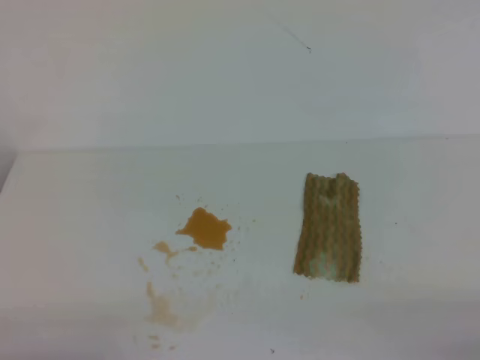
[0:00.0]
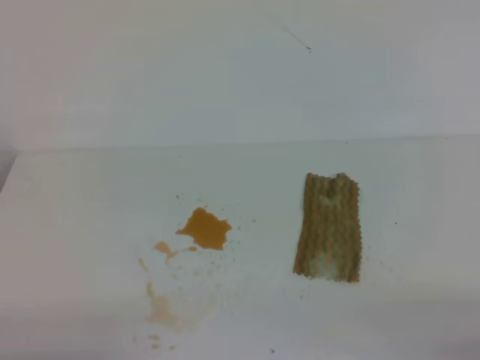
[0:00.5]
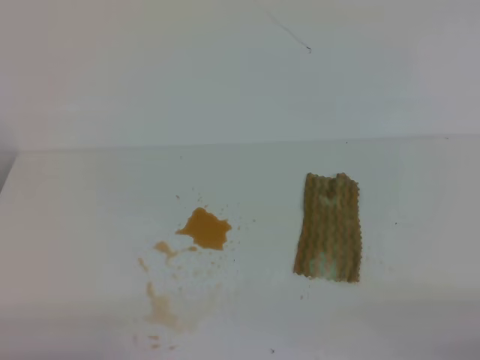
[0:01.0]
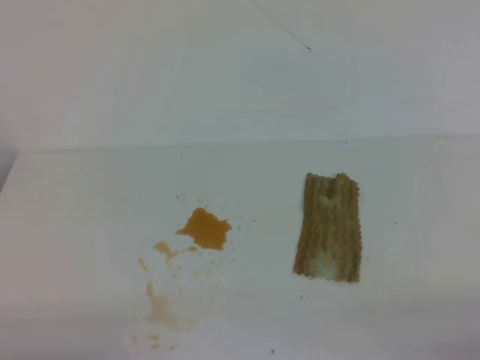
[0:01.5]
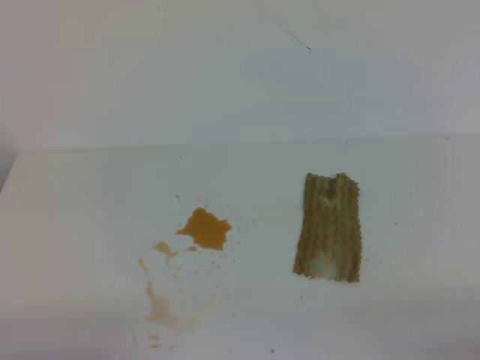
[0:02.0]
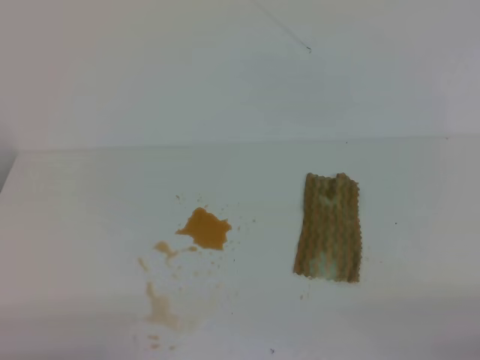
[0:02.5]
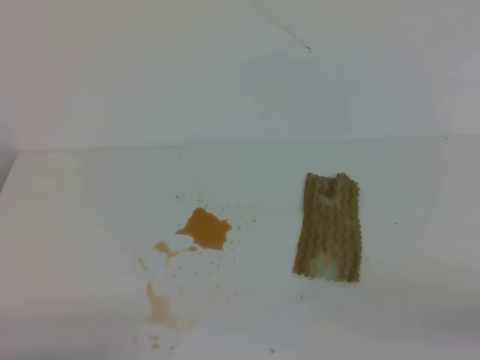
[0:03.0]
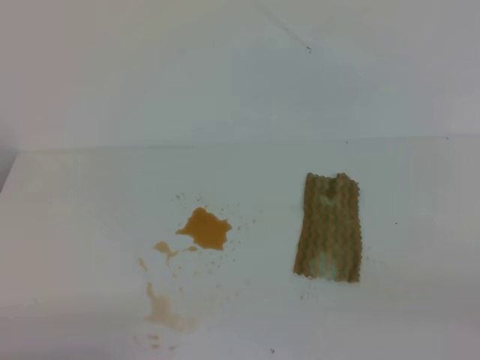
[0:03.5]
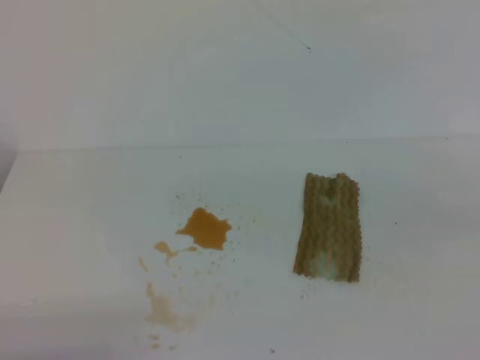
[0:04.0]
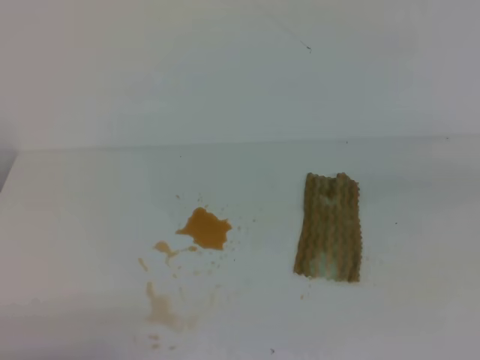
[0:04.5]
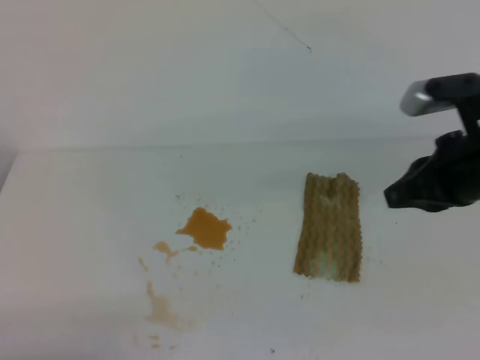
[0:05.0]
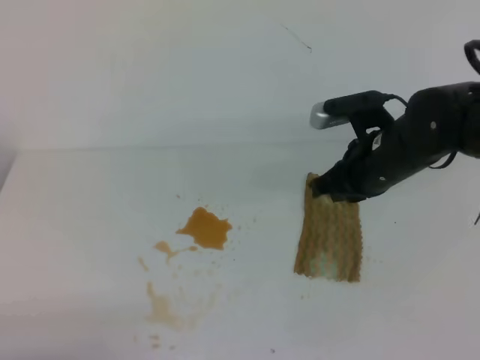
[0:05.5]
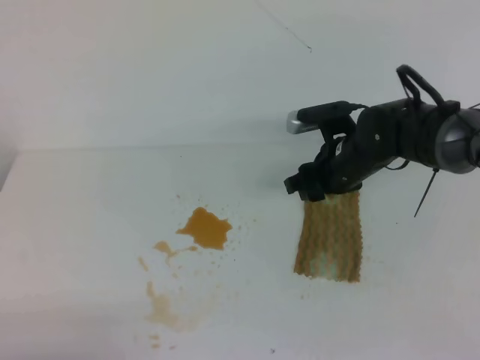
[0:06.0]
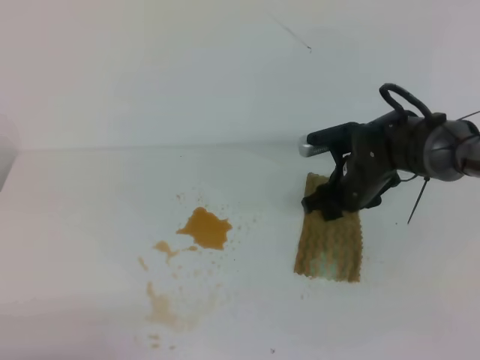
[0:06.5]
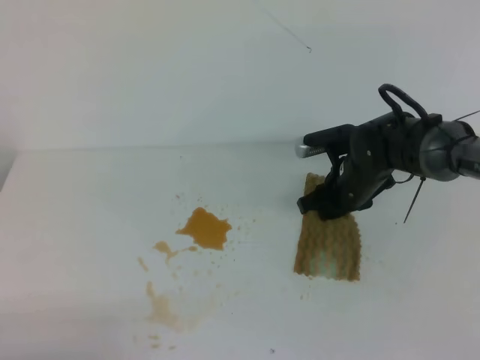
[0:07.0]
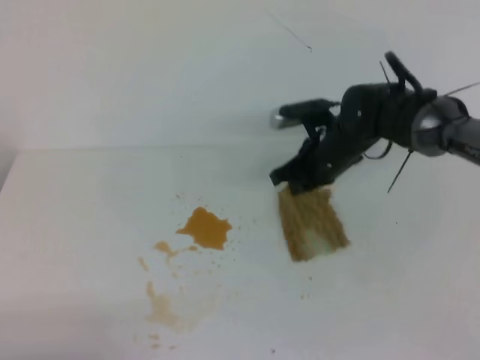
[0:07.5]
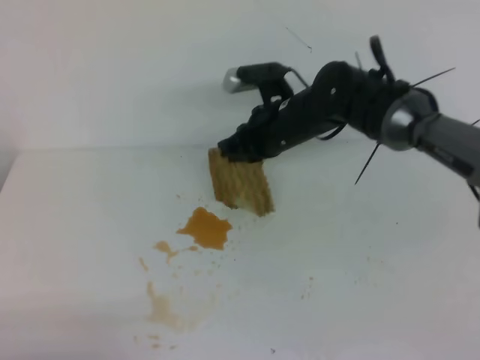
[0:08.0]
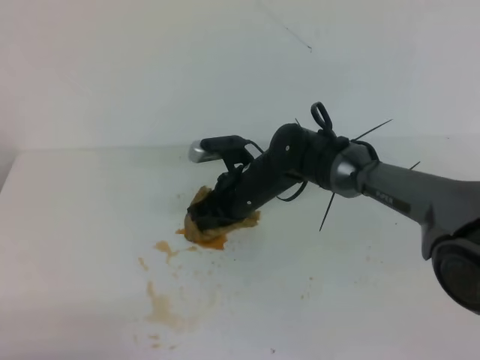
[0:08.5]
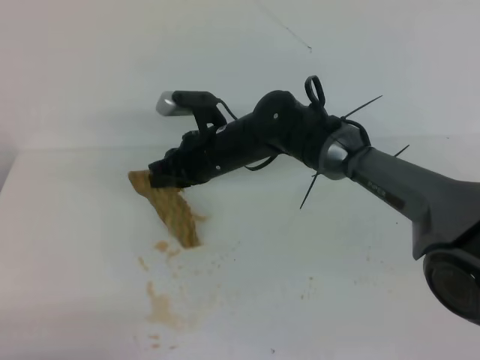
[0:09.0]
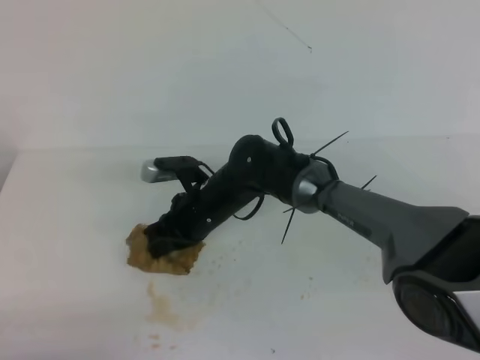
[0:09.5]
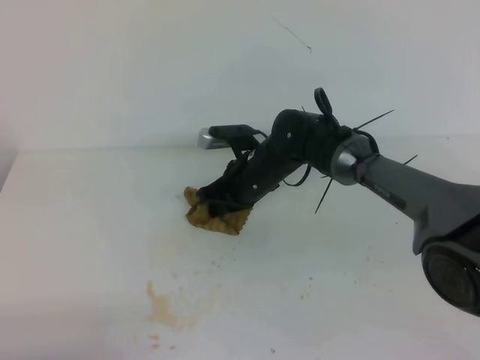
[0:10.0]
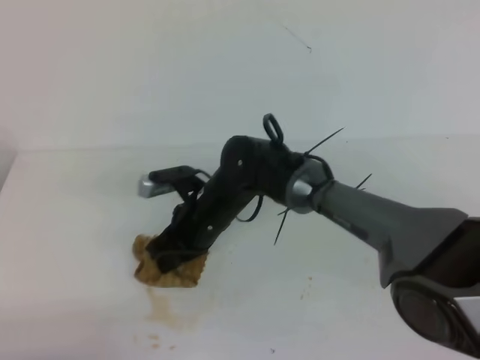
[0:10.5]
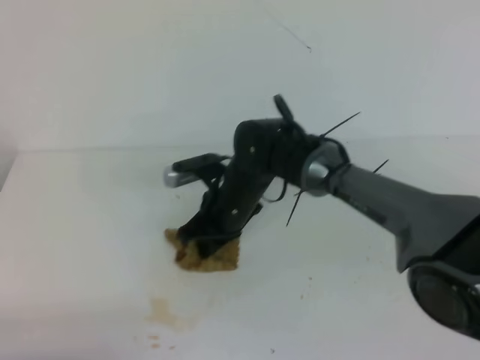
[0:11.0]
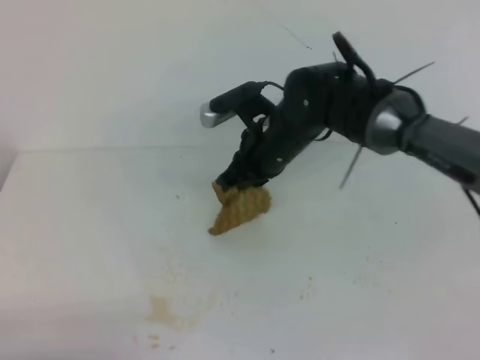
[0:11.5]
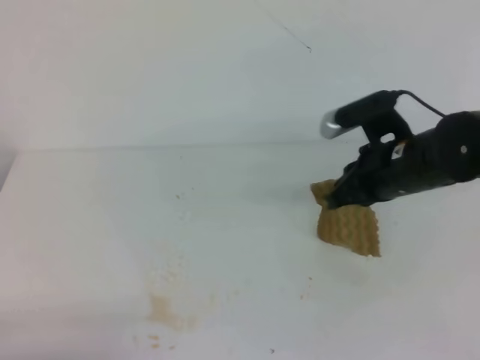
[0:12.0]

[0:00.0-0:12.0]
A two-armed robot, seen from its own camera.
0:00.0 to 0:02.0: The two grippers keep their place.
0:04.0 to 0:06.0: The right gripper is displaced forward, to the left and downward by approximately 40 cm, and opens up.
0:06.0 to 0:08.0: The right gripper shifts some 10 cm to the left, reaches approximately 5 cm downward, then returns, and closes its fingers.
0:08.0 to 0:10.0: The right gripper heads downward, covering approximately 10 cm.
0:10.0 to 0:12.0: The right gripper goes approximately 20 cm to the right, upward and backward.

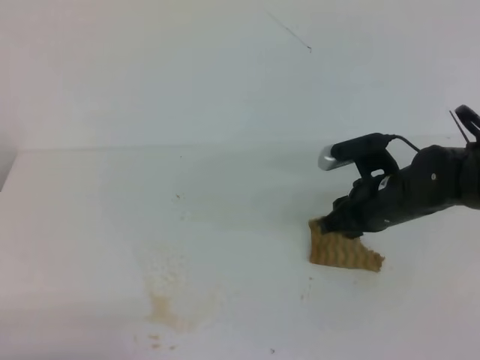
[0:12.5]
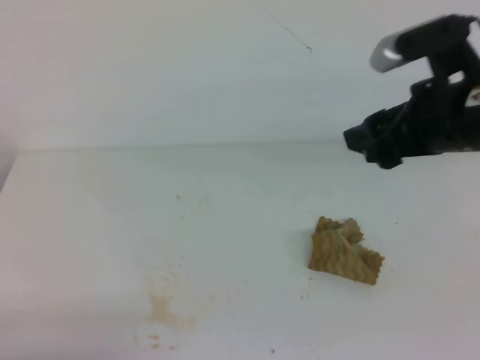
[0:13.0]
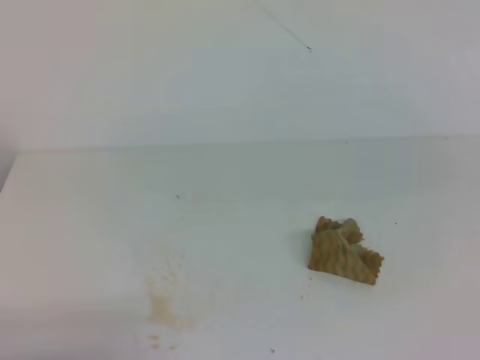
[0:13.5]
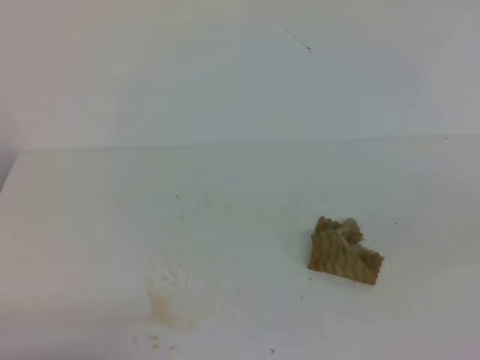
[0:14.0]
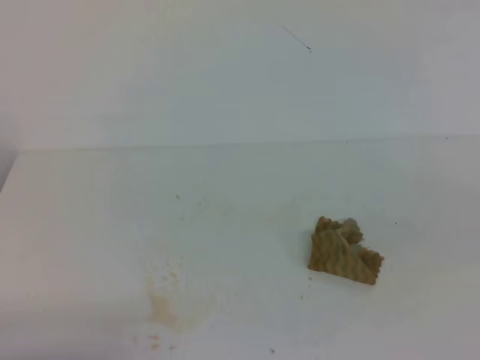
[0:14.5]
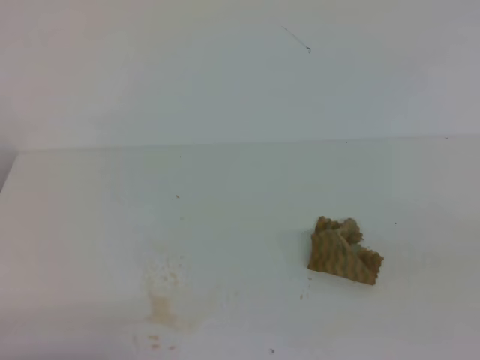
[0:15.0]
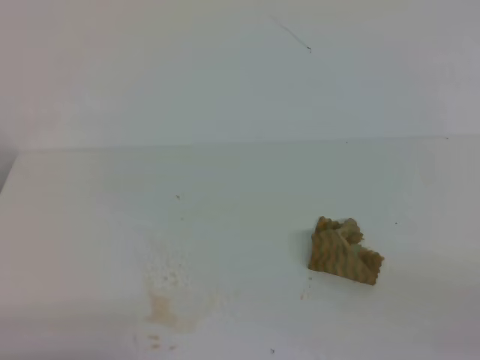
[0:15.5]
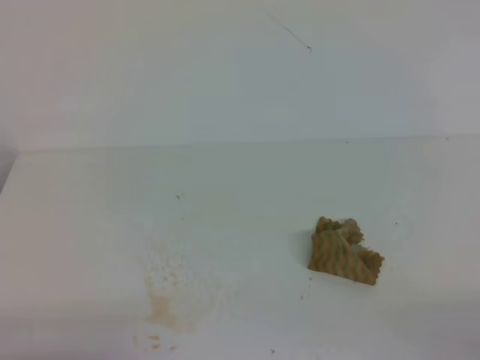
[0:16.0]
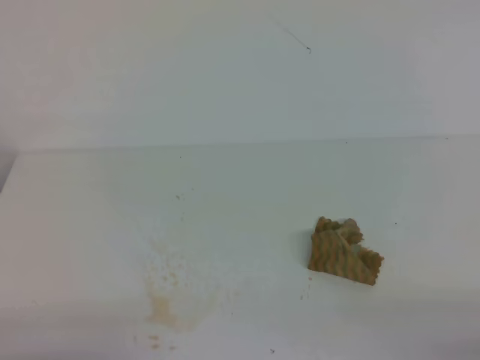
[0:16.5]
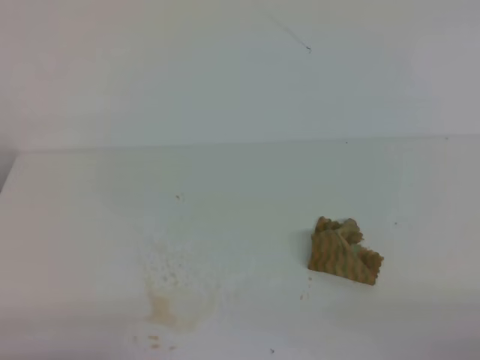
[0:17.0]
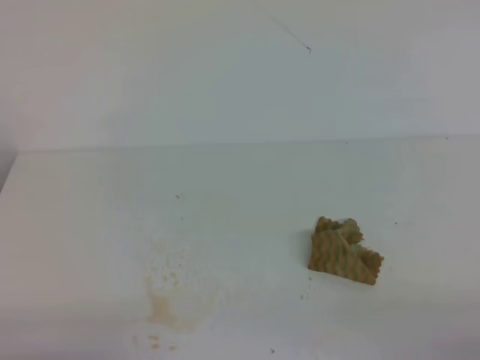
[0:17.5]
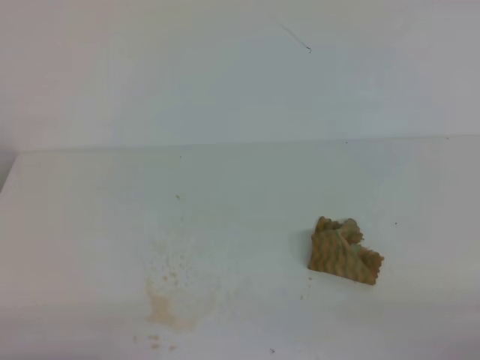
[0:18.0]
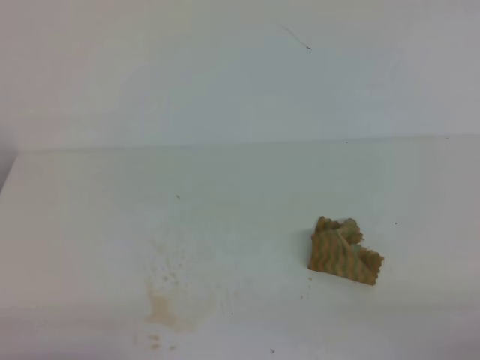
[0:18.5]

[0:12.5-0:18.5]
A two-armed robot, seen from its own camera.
0:12.5 to 0:14.5: The right gripper goes approximately 35 cm backward, upward and to the right, and closes up.
